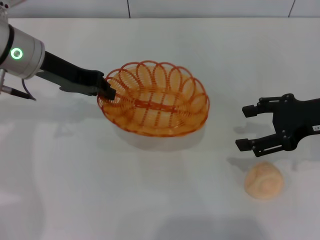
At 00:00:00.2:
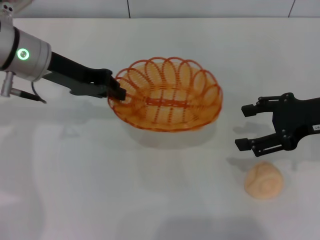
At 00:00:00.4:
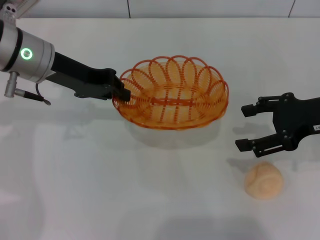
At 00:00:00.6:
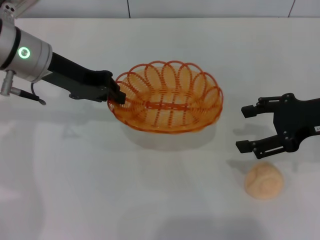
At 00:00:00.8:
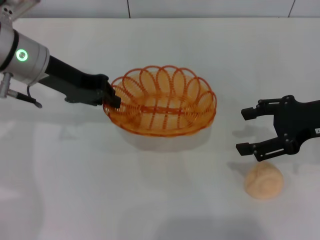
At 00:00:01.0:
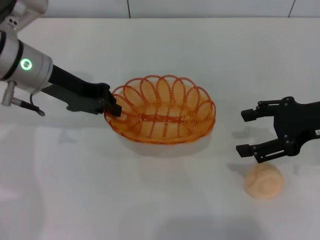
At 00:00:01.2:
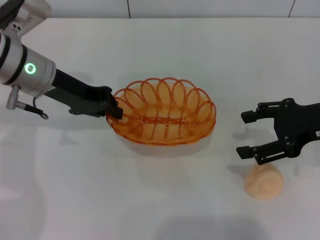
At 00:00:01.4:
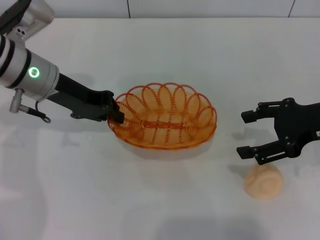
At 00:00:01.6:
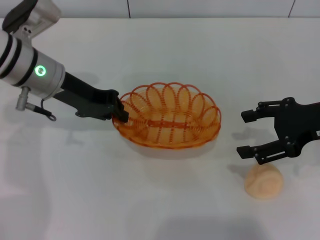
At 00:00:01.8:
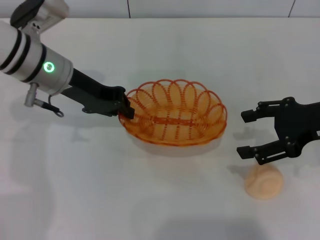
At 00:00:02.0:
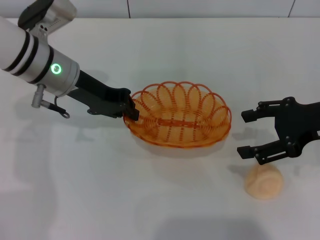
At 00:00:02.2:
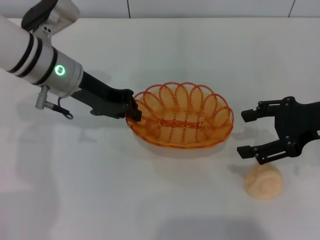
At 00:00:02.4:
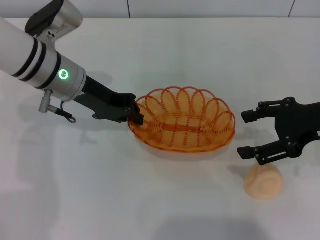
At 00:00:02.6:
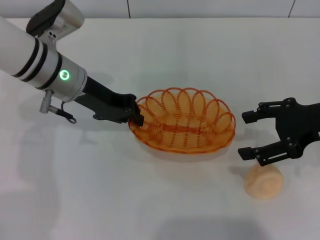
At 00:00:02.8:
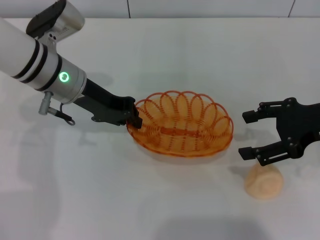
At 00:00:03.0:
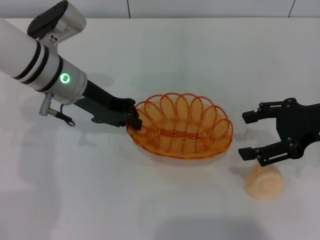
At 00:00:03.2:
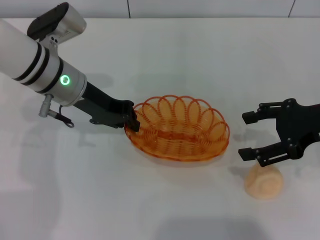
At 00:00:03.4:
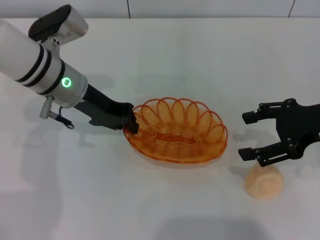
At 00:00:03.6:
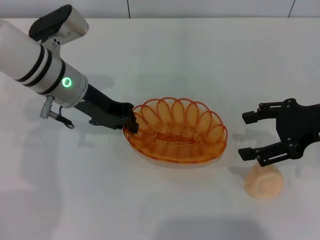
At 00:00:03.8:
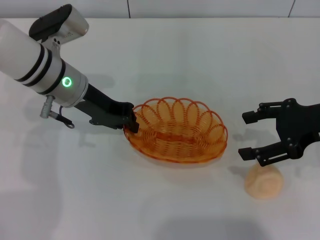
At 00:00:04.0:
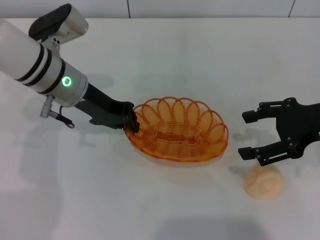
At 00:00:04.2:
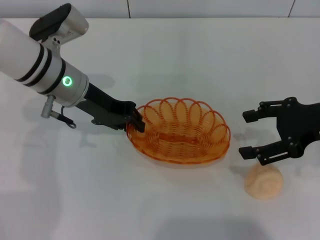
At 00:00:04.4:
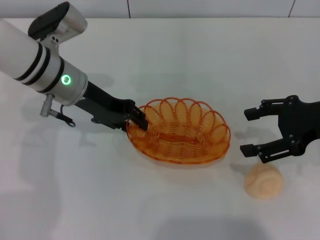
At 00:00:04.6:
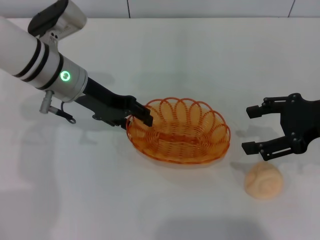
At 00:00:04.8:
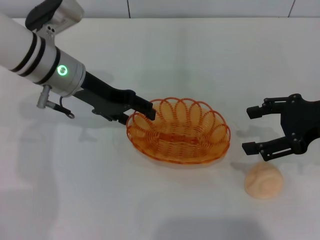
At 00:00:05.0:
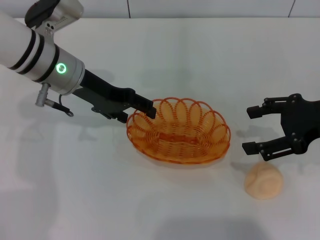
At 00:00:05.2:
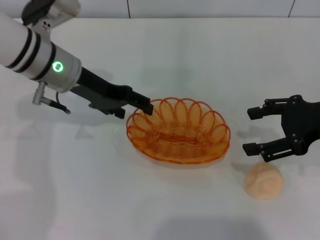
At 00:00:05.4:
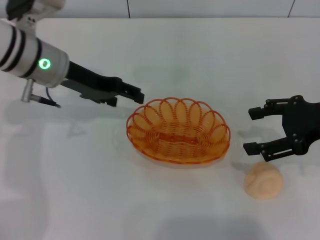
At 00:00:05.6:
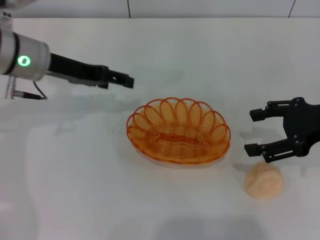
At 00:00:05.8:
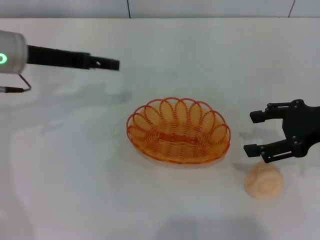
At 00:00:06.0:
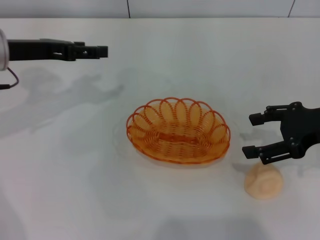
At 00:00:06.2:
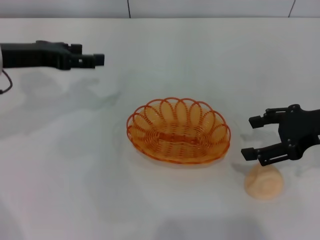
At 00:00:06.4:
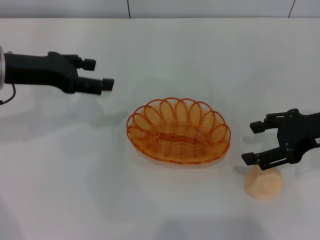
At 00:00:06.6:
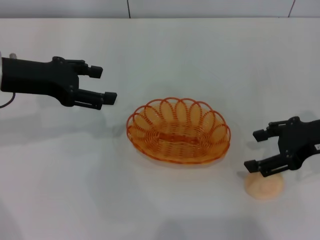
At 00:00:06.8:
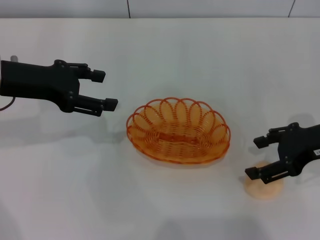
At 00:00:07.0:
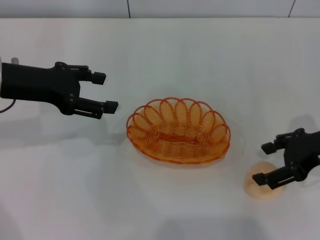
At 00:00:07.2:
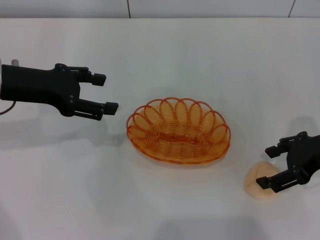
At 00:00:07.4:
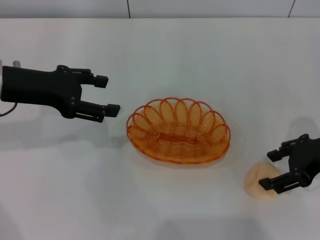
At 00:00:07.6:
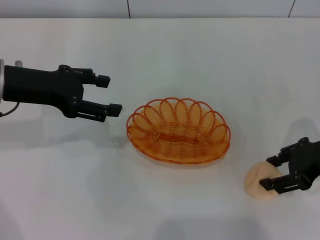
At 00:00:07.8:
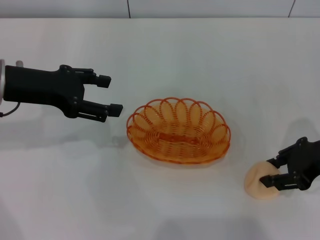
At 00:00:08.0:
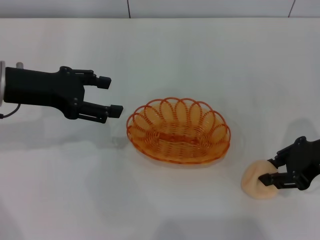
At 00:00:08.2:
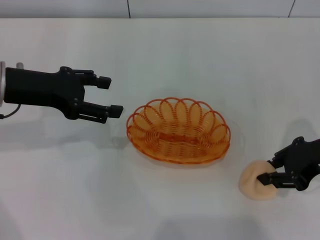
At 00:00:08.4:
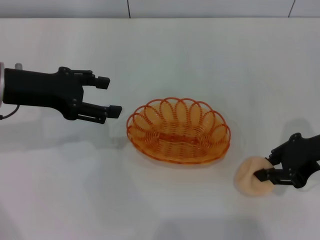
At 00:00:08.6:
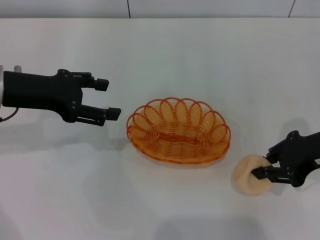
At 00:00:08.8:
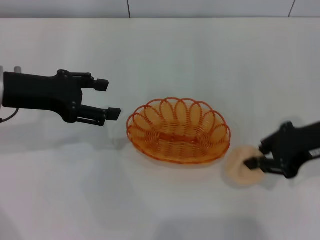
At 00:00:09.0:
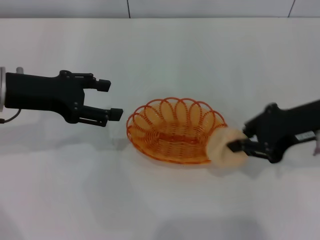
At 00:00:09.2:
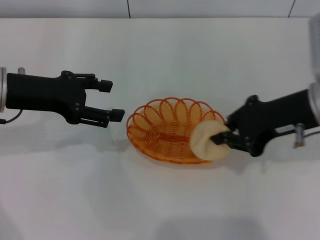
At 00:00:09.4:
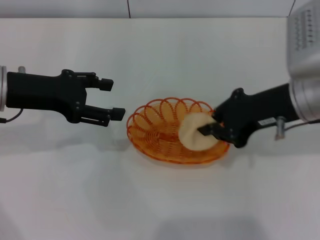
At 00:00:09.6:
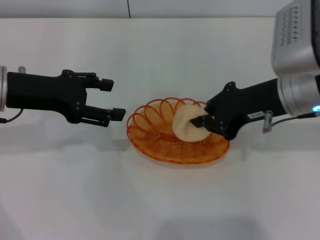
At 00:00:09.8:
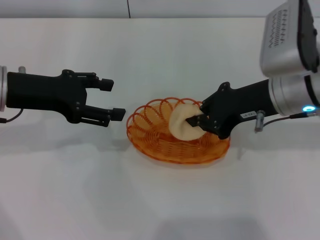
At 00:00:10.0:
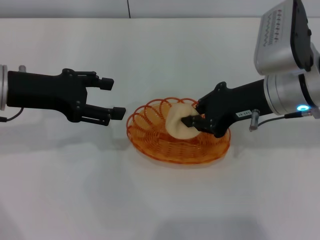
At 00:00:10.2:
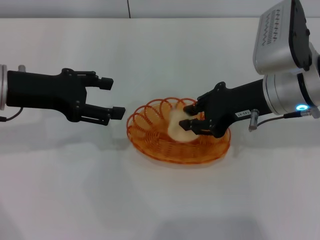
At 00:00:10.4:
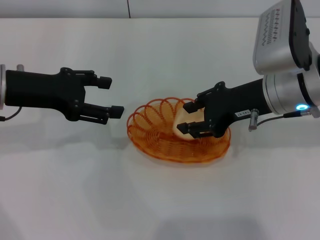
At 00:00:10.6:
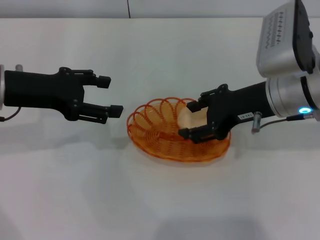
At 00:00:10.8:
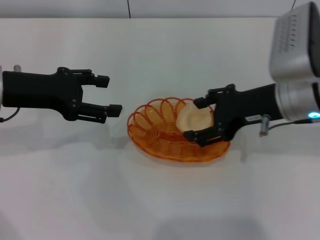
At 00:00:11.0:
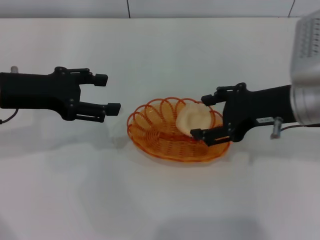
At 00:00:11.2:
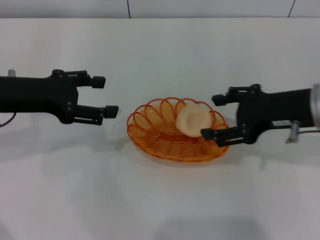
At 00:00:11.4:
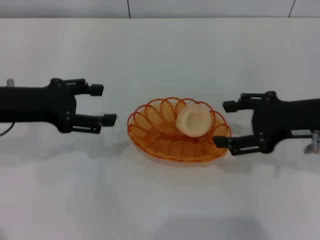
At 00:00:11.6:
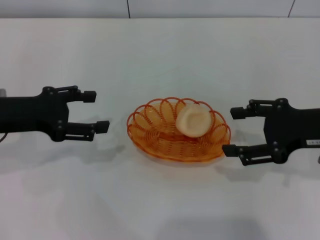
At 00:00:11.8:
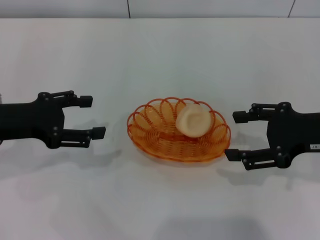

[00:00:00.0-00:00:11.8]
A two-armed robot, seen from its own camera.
Step, 00:00:00.0 to 00:00:05.4: Place the basket in the center of view with the left gripper.
Step, 00:00:05.6 to 00:00:08.8: Pick up the egg yolk pastry with the right gripper.
00:00:00.0 to 00:00:01.4: The grippers stay close to where they were, moving slightly.
00:00:01.4 to 00:00:03.0: The grippers stay close to where they were, moving slightly.
00:00:03.0 to 00:00:04.4: Both grippers stay about where they are.
00:00:04.4 to 00:00:06.0: The left gripper heads to the left, covering roughly 10 cm, and opens.
00:00:07.4 to 00:00:08.8: The right gripper closes up.
00:00:08.8 to 00:00:10.4: The right gripper goes roughly 10 cm to the left.
00:00:10.4 to 00:00:11.8: The right gripper goes about 10 cm to the right and backward, and opens up. The left gripper changes place by some 5 cm.

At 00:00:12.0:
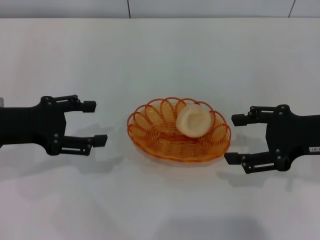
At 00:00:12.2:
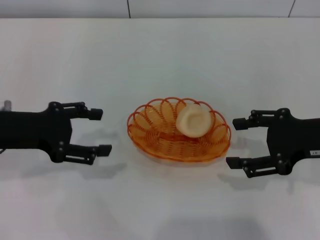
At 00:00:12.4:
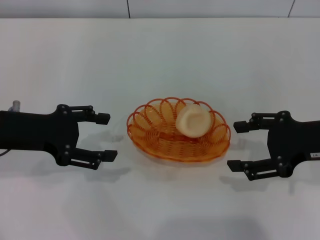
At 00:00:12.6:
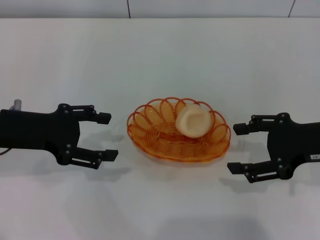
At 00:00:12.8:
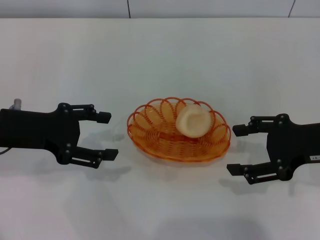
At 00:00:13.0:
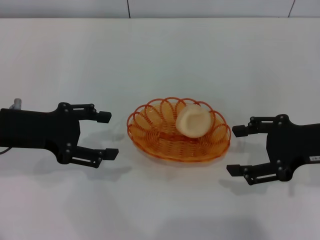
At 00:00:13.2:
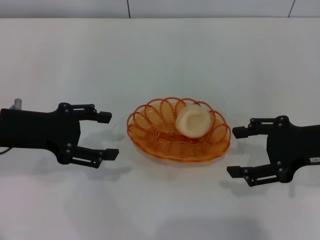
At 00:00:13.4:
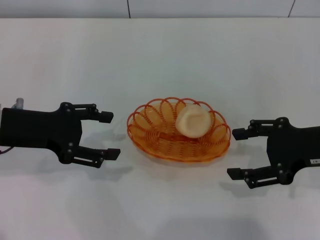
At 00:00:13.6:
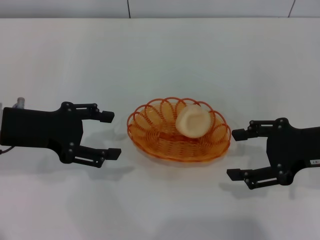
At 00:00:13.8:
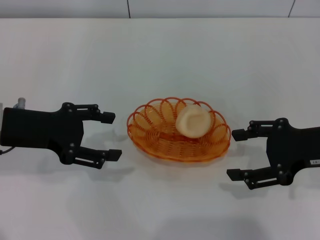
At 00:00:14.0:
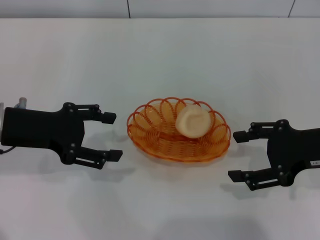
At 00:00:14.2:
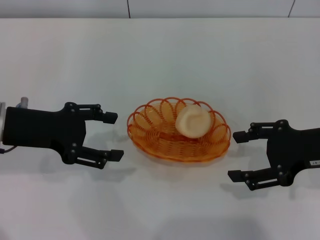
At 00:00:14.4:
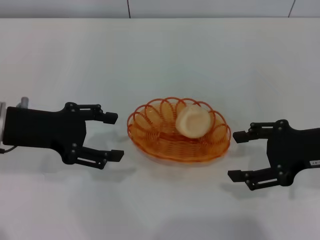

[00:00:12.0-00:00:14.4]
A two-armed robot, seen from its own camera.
00:00:12.0 to 00:00:13.2: The grippers move only a little.
00:00:13.2 to 00:00:14.4: The two grippers keep their place.

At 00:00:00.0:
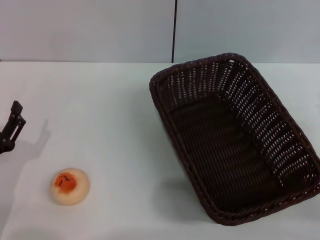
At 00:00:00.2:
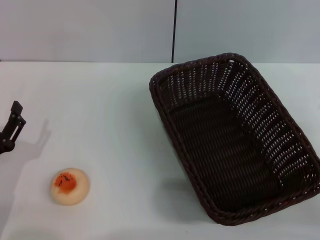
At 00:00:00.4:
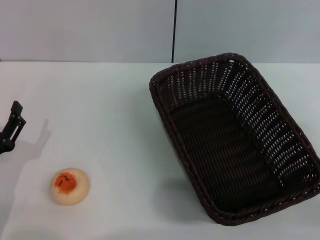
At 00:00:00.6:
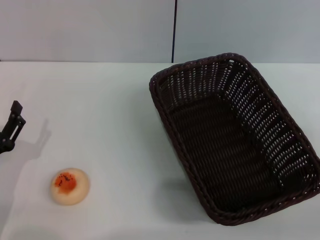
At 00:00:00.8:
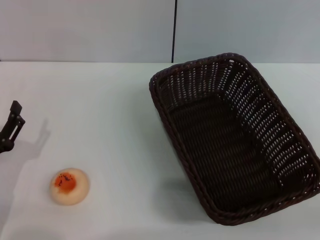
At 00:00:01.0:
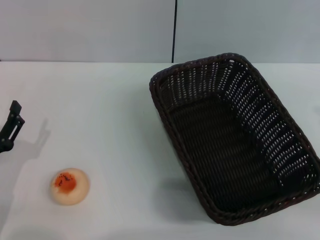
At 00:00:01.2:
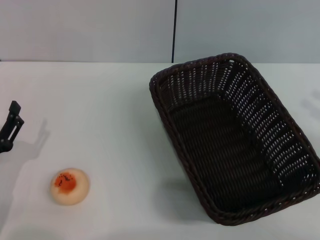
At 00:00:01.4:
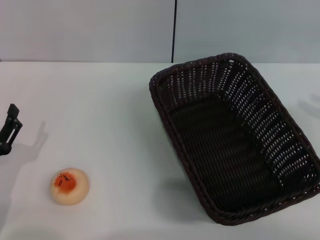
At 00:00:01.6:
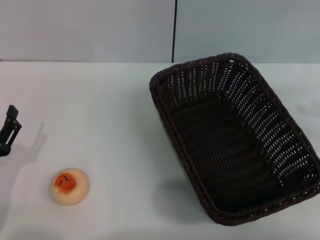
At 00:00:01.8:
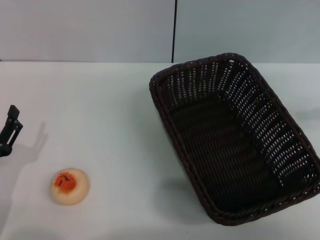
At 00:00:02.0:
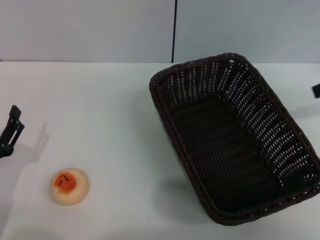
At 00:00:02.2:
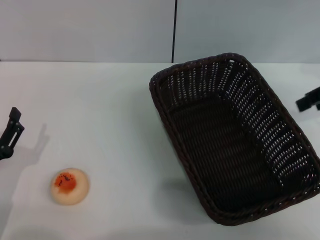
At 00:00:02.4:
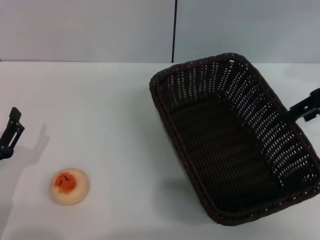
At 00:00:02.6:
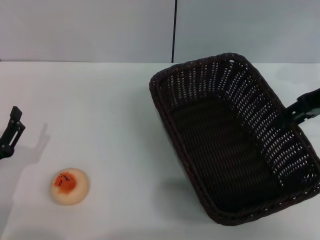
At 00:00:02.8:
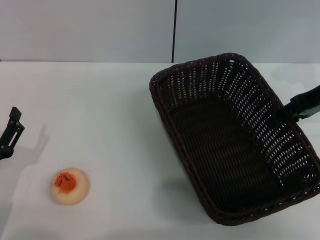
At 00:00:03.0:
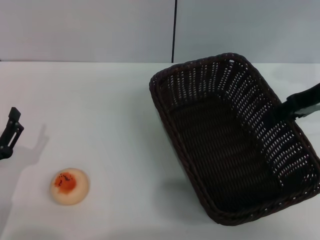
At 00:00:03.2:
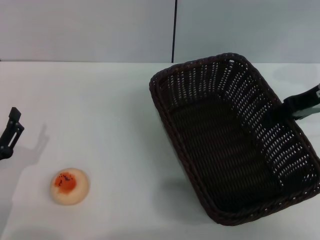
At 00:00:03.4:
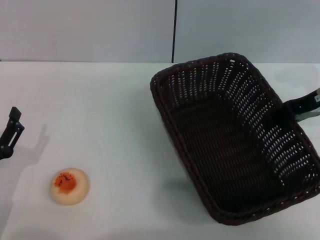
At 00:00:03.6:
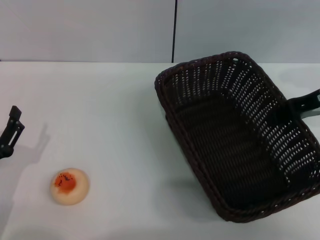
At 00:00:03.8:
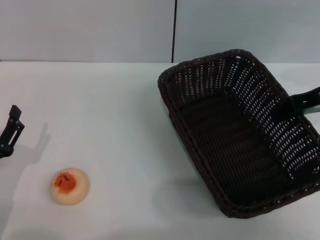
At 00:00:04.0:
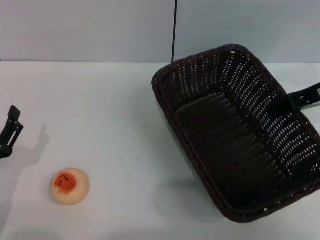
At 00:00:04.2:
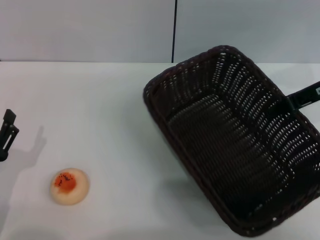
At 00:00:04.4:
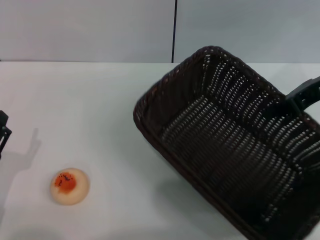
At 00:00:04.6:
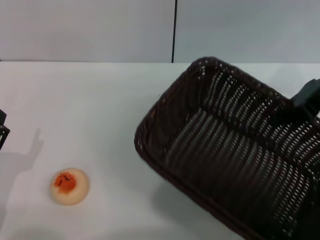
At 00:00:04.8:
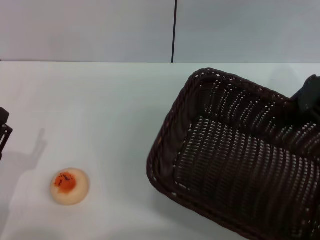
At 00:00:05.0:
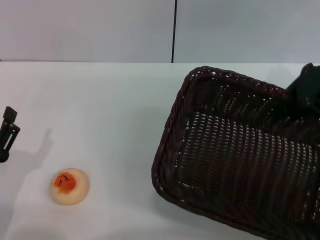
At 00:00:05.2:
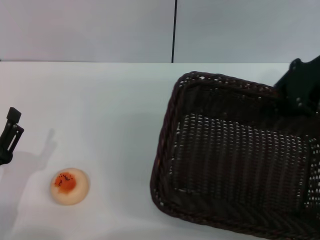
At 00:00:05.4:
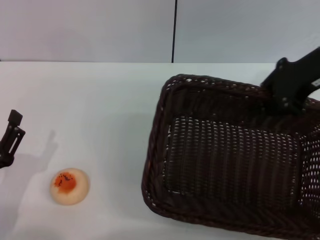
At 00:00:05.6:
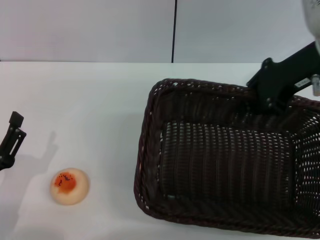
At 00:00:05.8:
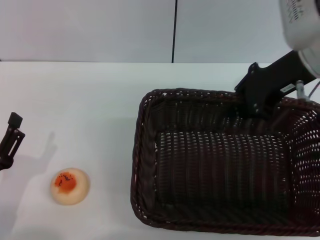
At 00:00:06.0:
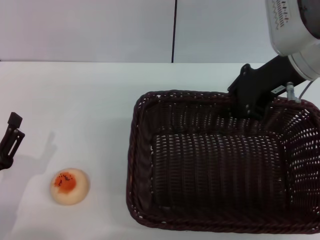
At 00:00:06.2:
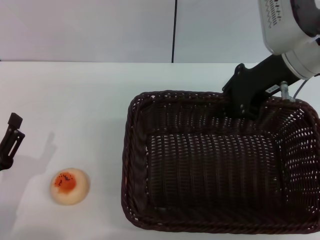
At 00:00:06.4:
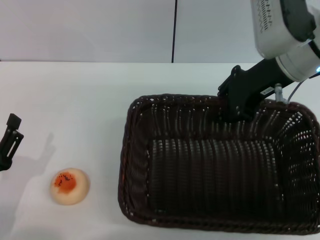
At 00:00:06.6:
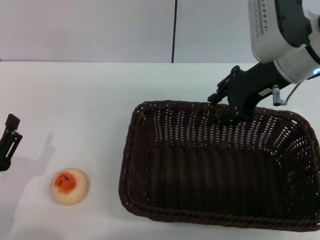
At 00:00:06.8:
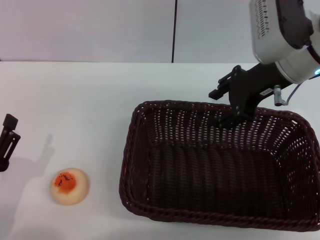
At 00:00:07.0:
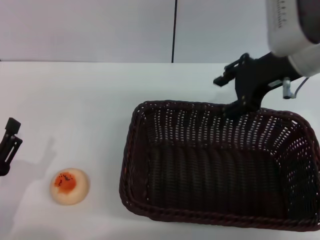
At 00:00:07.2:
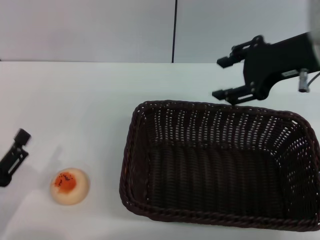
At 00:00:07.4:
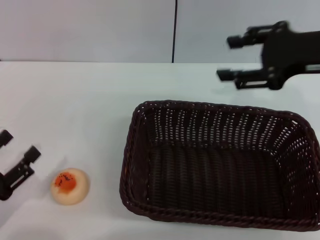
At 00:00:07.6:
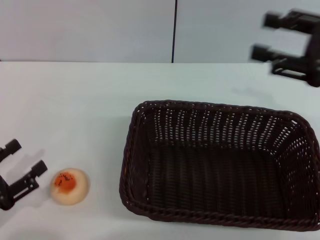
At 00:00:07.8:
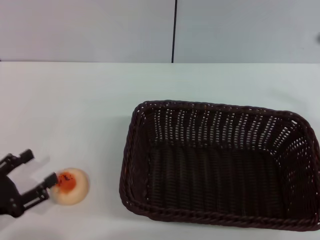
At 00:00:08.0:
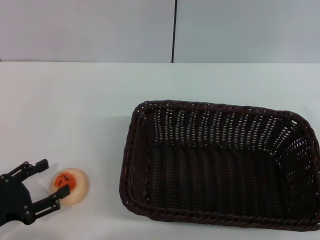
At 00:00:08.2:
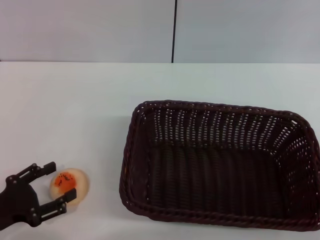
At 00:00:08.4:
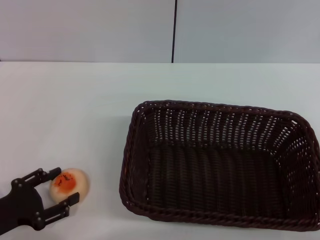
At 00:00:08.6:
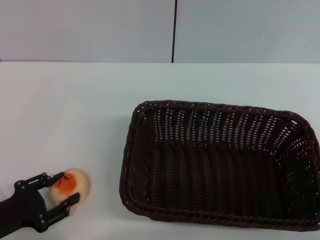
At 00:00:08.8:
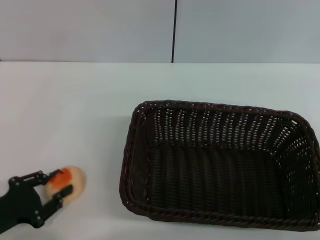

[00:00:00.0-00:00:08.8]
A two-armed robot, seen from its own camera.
Step, 00:00:00.0 to 00:00:07.2: Move the basket to the center of view with the right gripper.
00:00:00.0 to 00:00:01.4: The right gripper is displaced upward, to the right and forward by about 20 cm.
00:00:01.4 to 00:00:03.0: The right gripper shifts approximately 15 cm to the left and forward.
00:00:03.0 to 00:00:04.4: The right gripper closes.
00:00:04.4 to 00:00:05.8: The right gripper travels to the left by about 5 cm.
00:00:05.8 to 00:00:07.4: The right gripper shifts approximately 5 cm backward, and opens up. Meanwhile the left gripper shifts by some 5 cm.
00:00:07.4 to 00:00:08.8: The right gripper shifts about 25 cm downward, backward and to the right. The left gripper closes.
